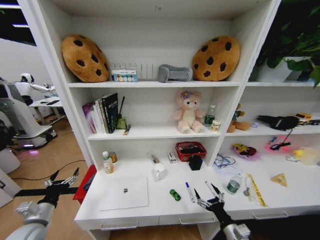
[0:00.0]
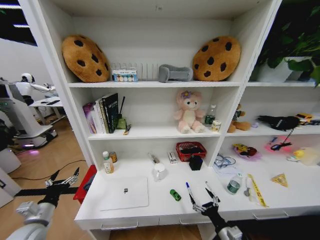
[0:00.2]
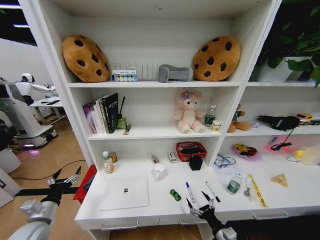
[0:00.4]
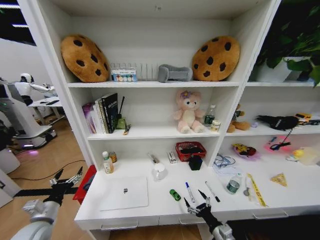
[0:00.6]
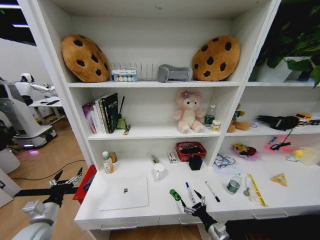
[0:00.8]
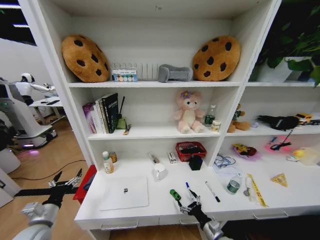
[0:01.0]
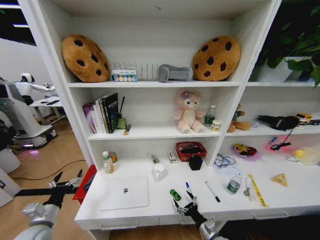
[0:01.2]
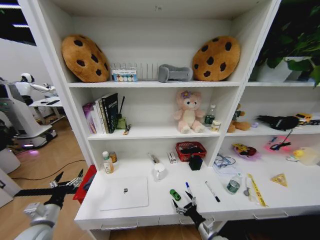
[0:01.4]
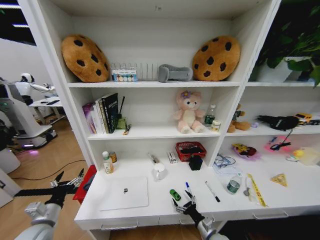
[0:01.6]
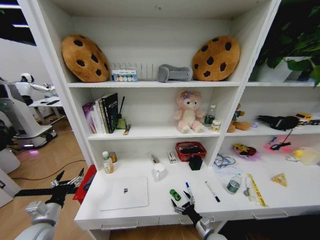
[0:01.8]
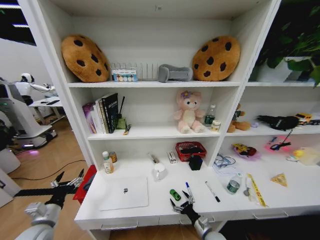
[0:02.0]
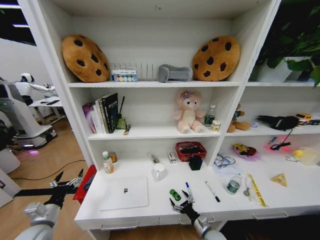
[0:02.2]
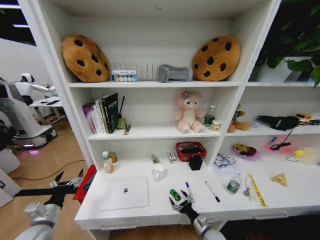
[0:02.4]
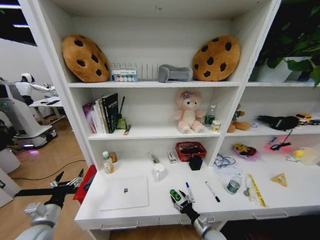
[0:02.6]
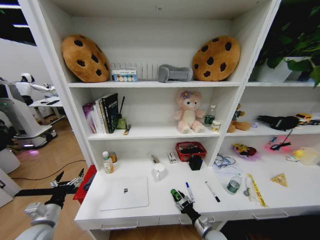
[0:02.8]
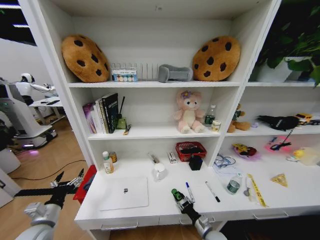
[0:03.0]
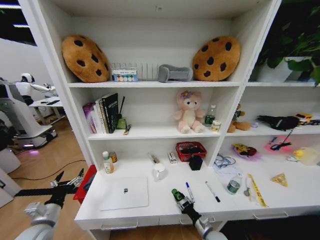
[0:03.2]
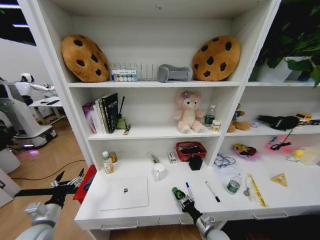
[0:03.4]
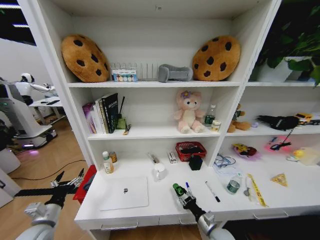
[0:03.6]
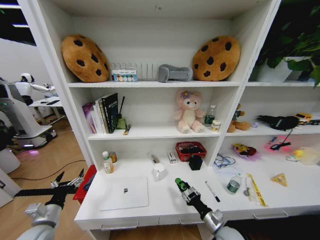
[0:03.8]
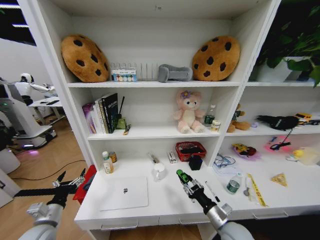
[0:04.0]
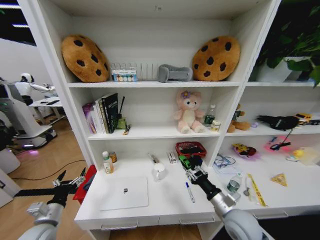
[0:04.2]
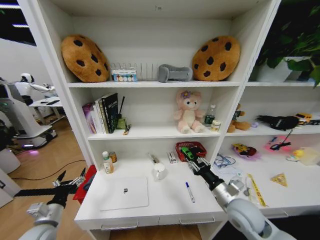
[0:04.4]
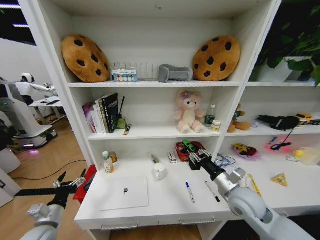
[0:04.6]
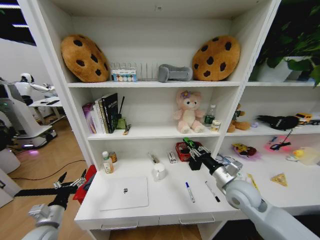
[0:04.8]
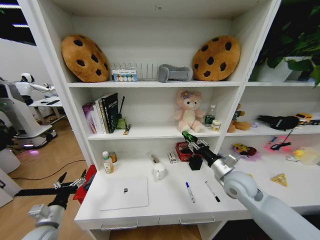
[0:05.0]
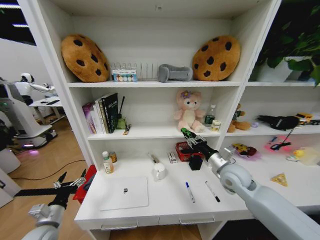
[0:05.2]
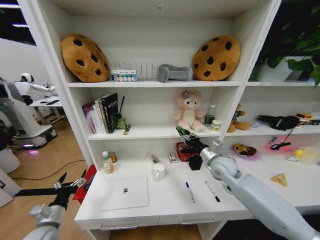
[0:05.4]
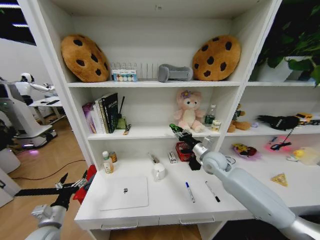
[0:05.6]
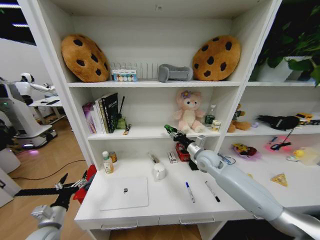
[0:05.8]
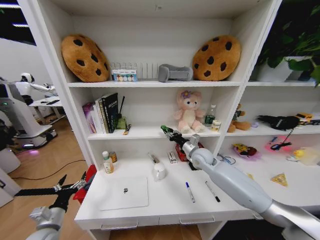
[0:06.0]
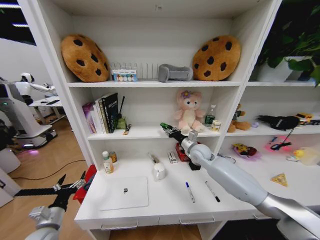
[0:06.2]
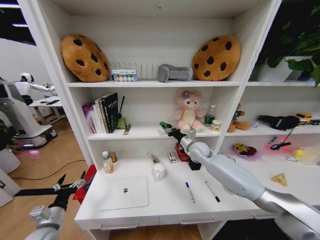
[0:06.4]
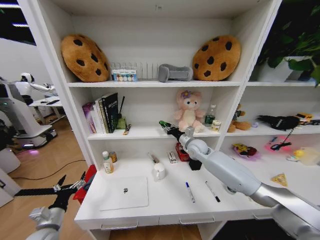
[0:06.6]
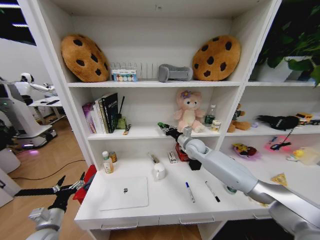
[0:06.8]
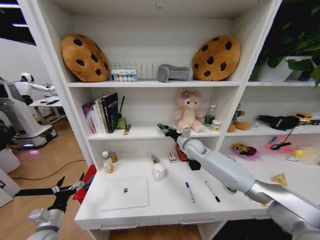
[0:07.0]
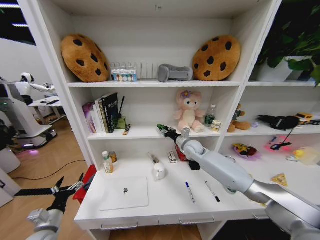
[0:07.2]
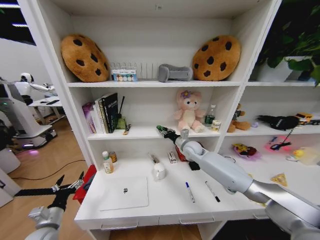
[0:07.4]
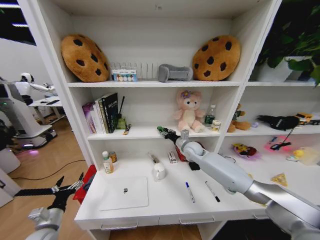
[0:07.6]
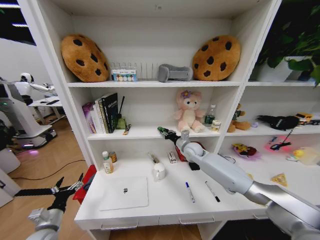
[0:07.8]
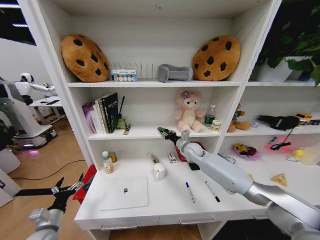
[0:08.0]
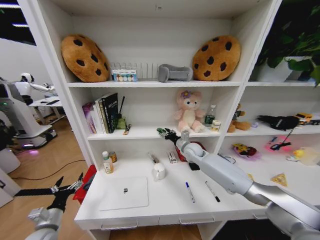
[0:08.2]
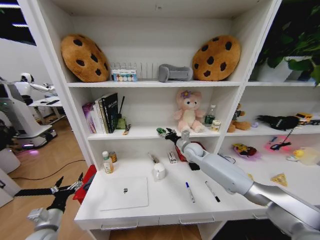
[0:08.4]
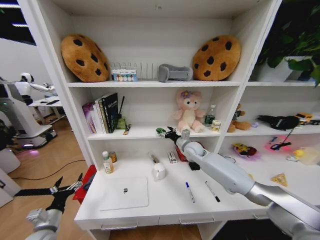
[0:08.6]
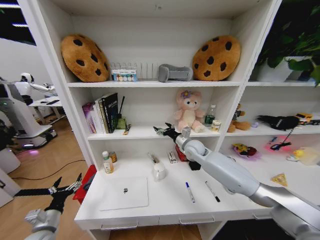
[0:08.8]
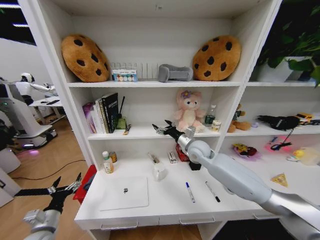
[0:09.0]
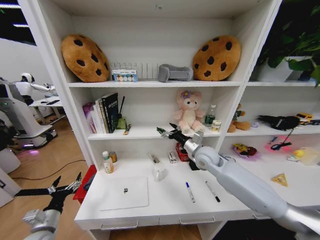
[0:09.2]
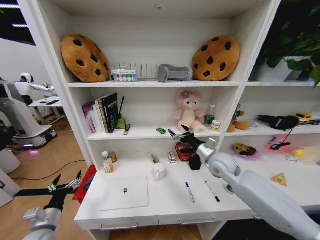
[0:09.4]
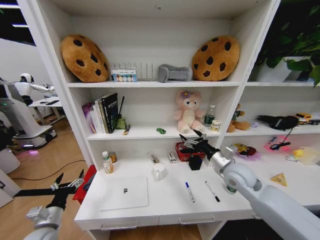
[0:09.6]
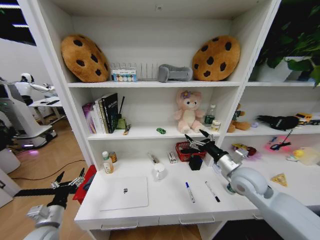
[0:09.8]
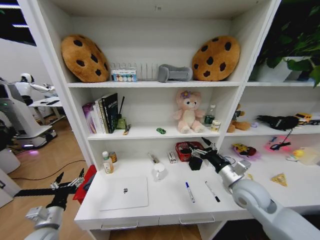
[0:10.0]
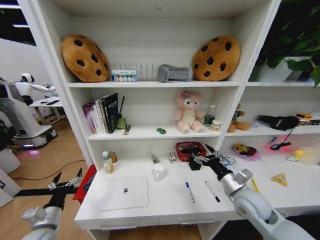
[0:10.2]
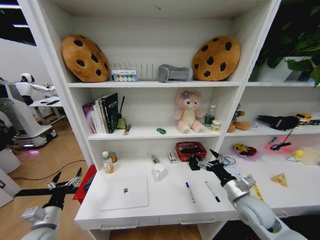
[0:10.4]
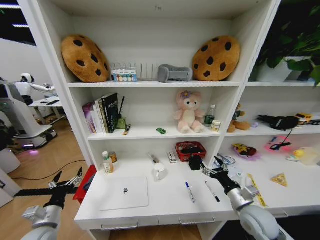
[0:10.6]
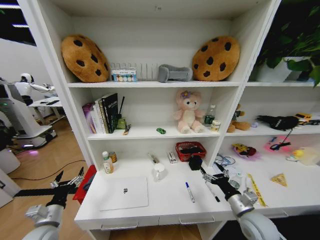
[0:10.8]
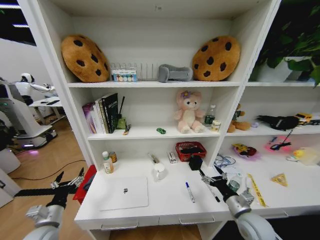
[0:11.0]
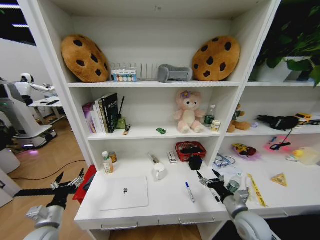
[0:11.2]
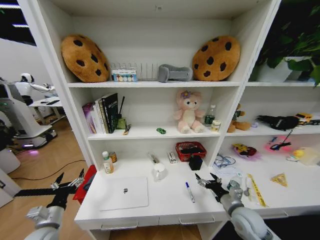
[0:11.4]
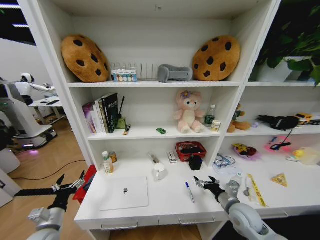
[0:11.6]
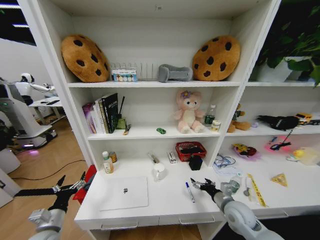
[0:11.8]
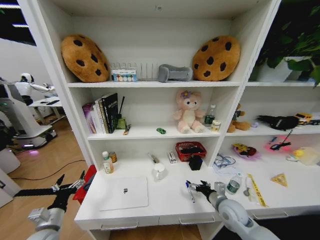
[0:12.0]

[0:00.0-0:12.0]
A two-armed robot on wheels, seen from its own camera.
Task of the whole recording: Organize the objects on the table.
0:00.0 to 0:01.6: The right gripper heads downward and to the left, covering approximately 15 cm.
0:01.6 to 0:03.0: The right gripper closes its fingers.
0:03.0 to 0:04.4: The right gripper travels upward by about 25 cm.
0:04.4 to 0:06.0: The right gripper travels forward by approximately 20 cm.
0:06.0 to 0:07.6: The right gripper shifts some 5 cm forward.
0:07.6 to 0:09.0: The right gripper shifts approximately 10 cm upward and backward, and opens.
0:09.0 to 0:10.4: The right gripper travels backward, to the right and downward by some 30 cm.
0:10.4 to 0:12.0: The right gripper heads downward, covering roughly 5 cm.

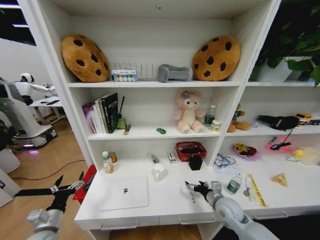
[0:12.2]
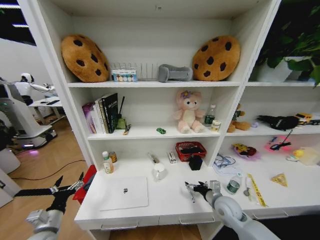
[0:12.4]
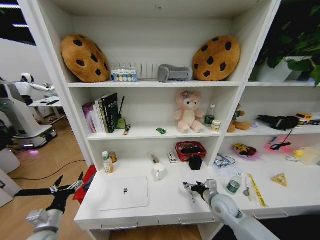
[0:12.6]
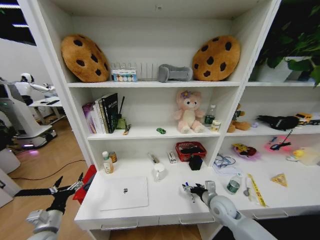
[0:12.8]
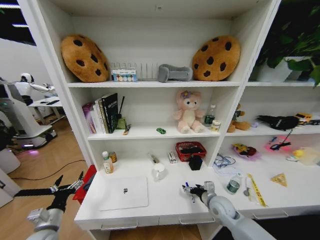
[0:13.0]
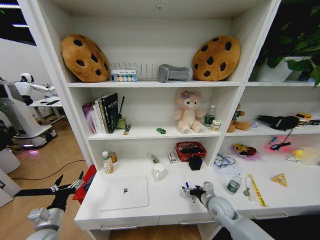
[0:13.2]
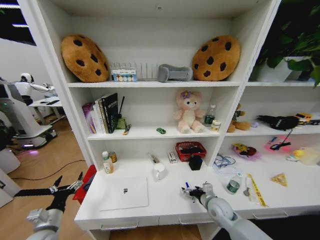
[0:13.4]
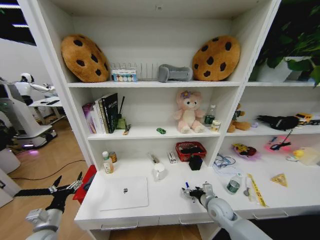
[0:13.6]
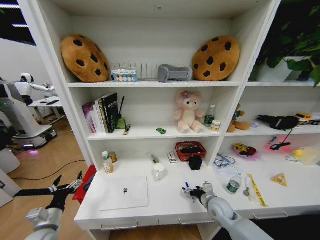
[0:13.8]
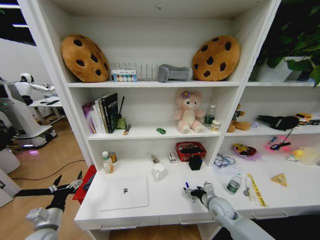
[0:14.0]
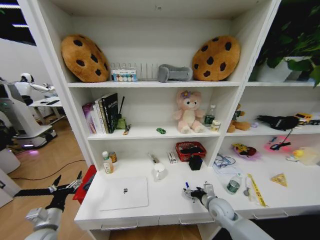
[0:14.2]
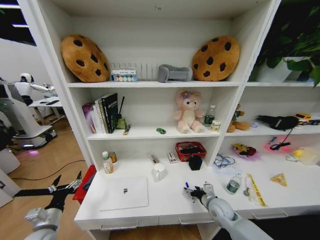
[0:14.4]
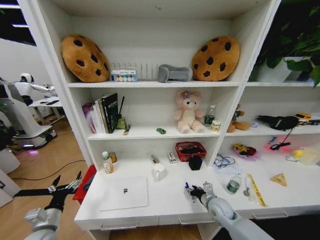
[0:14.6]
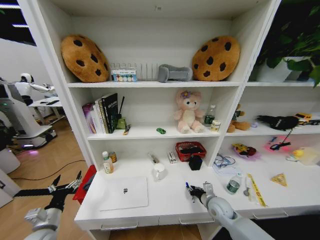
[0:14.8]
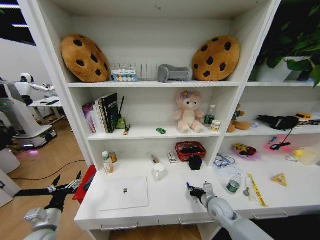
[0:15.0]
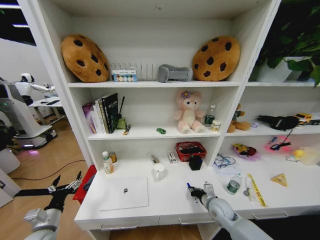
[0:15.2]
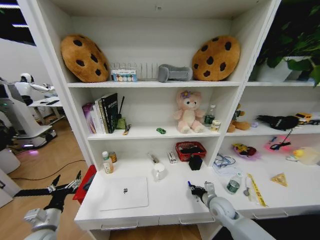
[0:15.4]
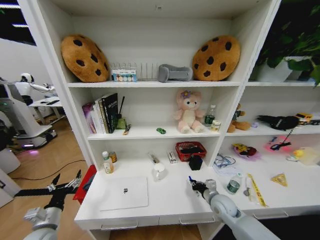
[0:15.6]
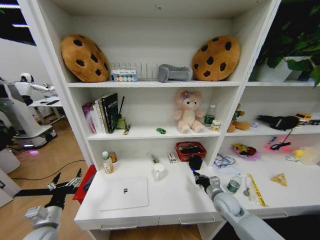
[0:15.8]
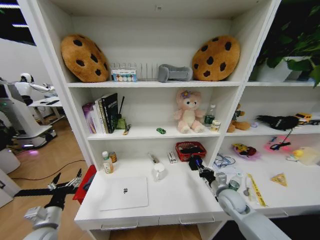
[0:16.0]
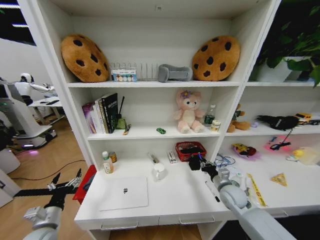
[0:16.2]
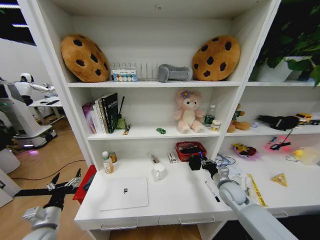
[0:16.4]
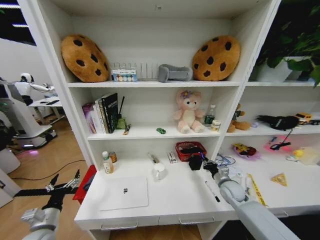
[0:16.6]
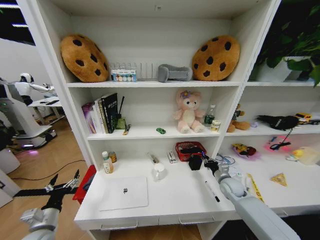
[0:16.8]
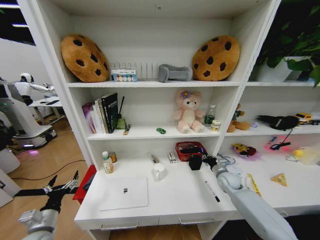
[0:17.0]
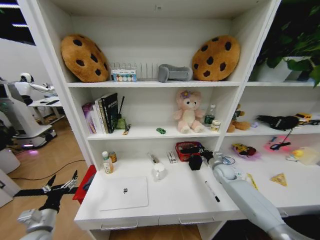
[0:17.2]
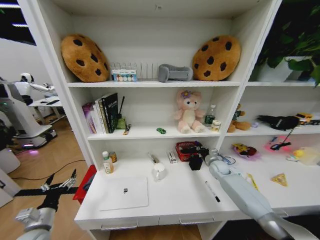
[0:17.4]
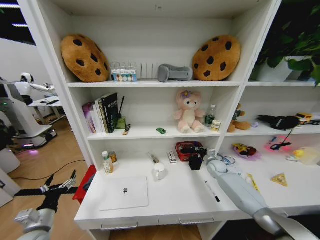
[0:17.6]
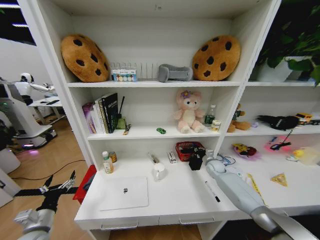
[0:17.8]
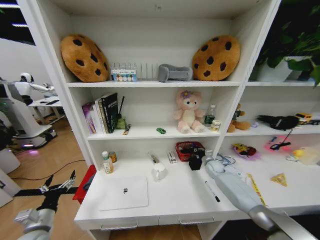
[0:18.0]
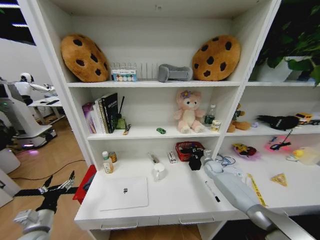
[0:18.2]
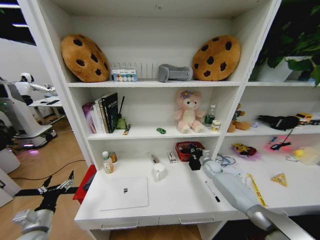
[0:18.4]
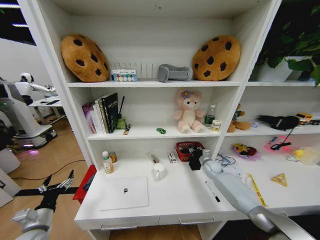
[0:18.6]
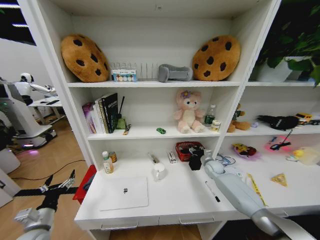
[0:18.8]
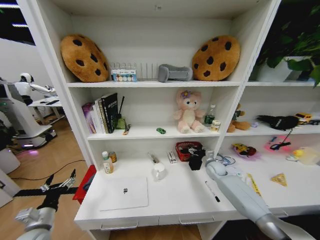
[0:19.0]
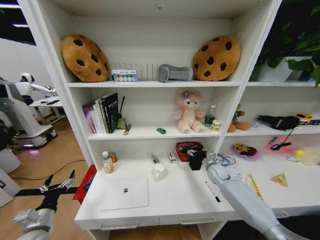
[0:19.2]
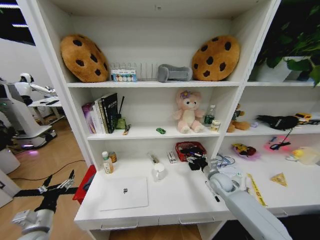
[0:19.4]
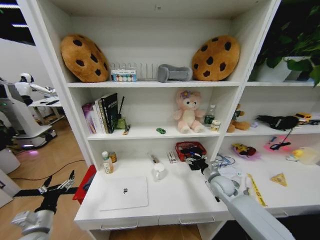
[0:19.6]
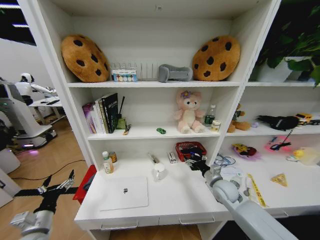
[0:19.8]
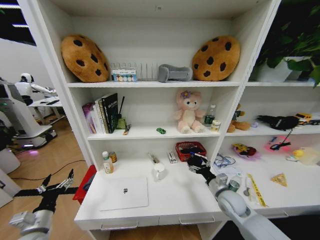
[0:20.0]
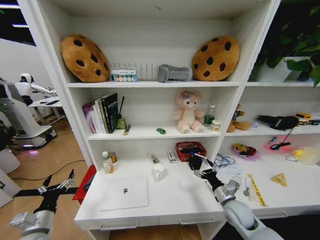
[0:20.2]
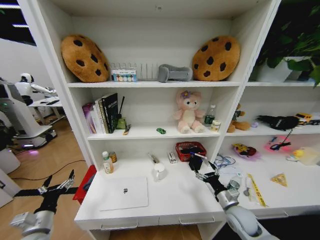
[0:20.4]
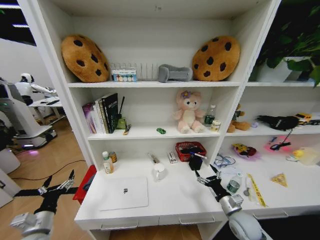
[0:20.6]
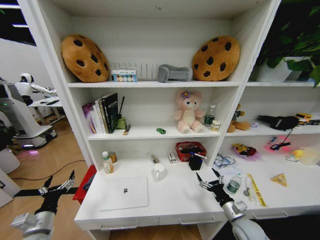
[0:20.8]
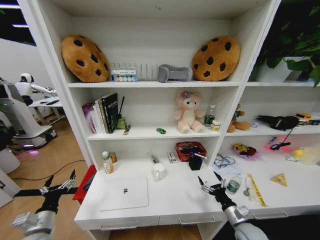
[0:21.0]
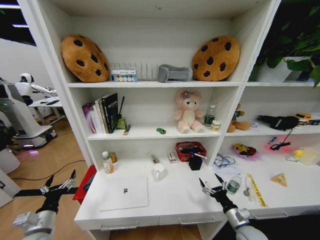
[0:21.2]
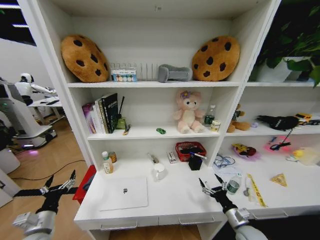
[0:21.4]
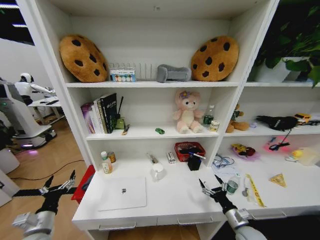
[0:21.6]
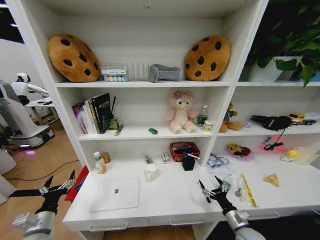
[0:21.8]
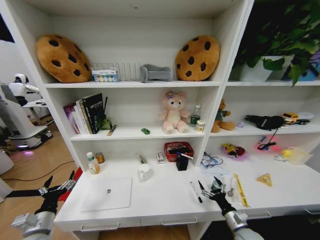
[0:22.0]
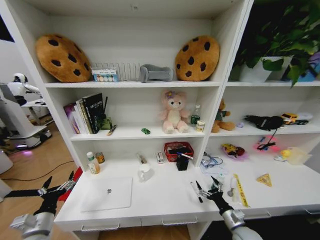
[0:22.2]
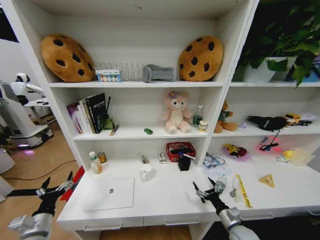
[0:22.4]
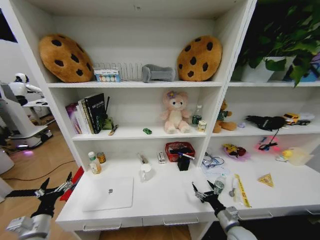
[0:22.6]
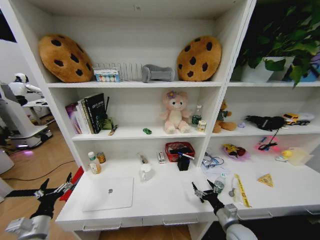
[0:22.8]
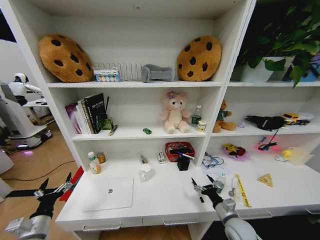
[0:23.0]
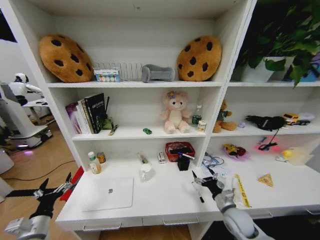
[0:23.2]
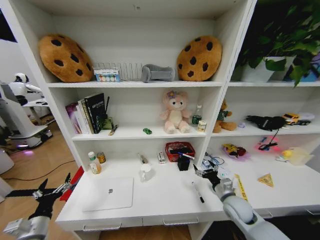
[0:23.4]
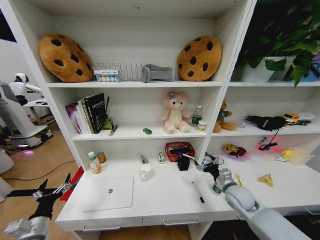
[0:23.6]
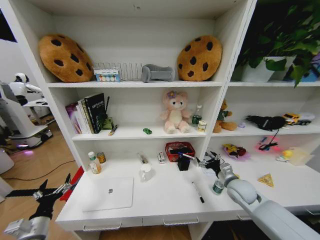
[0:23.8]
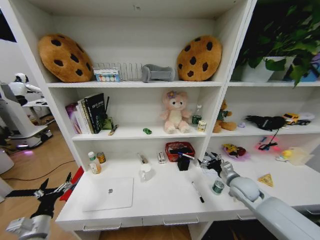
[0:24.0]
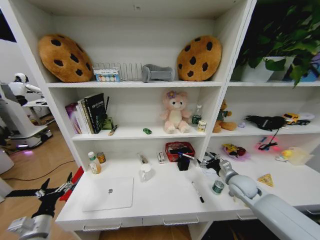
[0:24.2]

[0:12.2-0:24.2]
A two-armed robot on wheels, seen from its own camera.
Task of the whole recording: Organize the objects on the table.
0:12.2 to 0:13.8: The grippers move only a little.
0:15.2 to 0:16.6: The right gripper moves to the right and forward, roughly 10 cm.
0:16.6 to 0:18.2: The right gripper is displaced forward by approximately 15 cm.
0:18.2 to 0:19.8: The right gripper heads backward, covering approximately 15 cm, and opens up.
0:19.8 to 0:21.2: The right gripper shifts roughly 20 cm backward, downward and to the right.
0:22.6 to 0:24.2: The right gripper is displaced forward and upward by about 20 cm.
